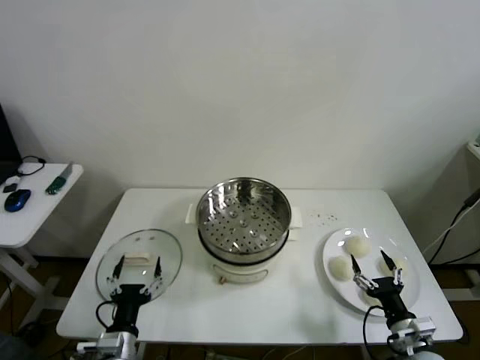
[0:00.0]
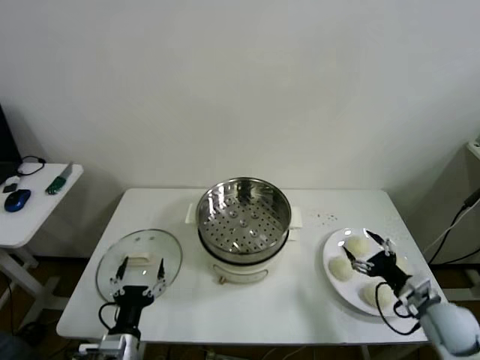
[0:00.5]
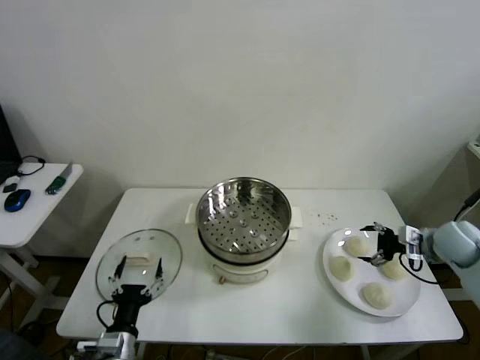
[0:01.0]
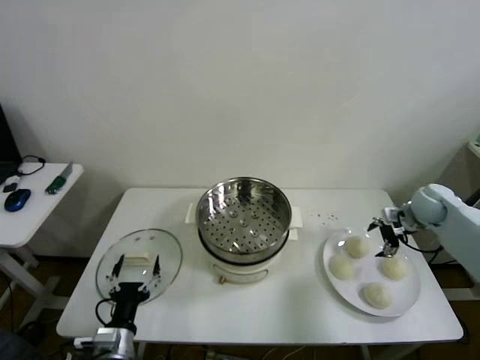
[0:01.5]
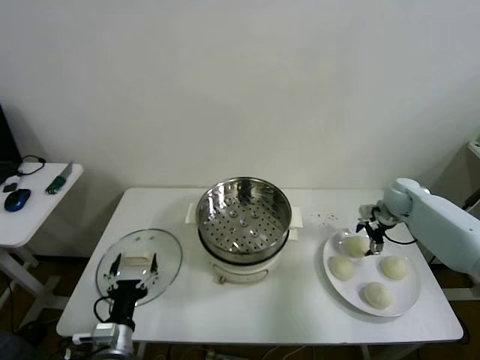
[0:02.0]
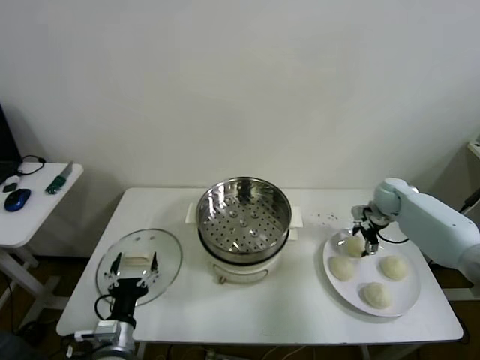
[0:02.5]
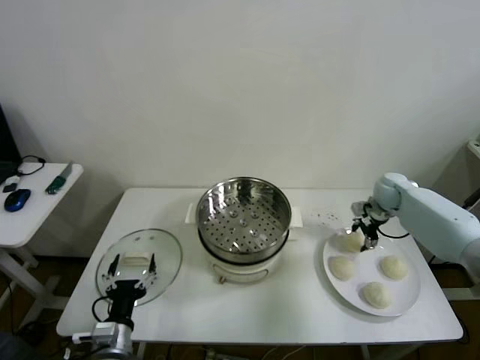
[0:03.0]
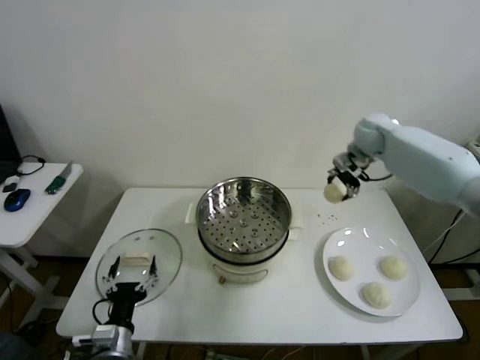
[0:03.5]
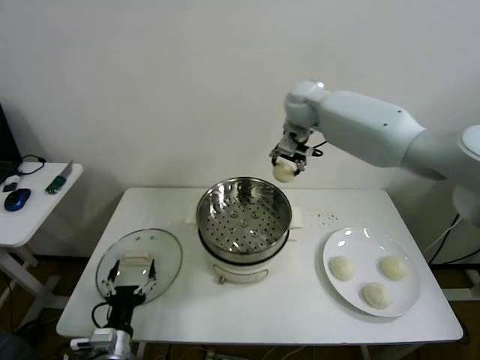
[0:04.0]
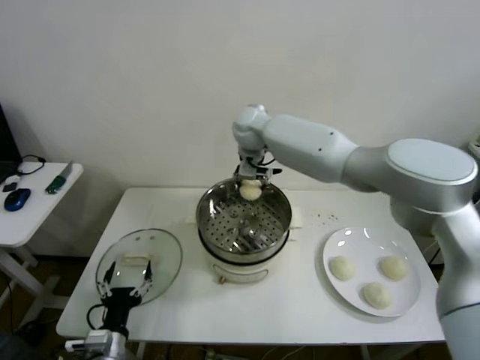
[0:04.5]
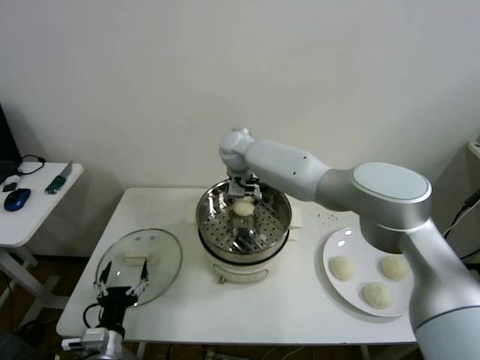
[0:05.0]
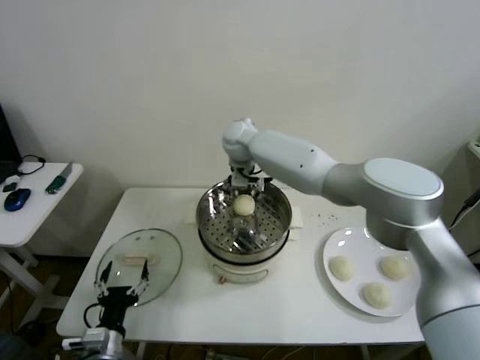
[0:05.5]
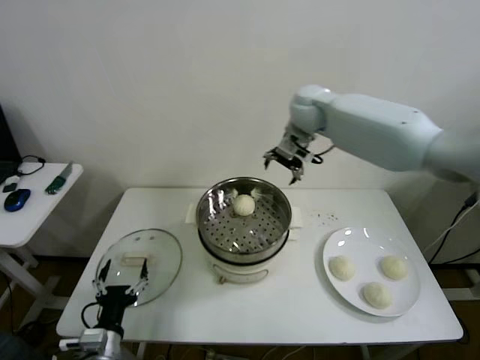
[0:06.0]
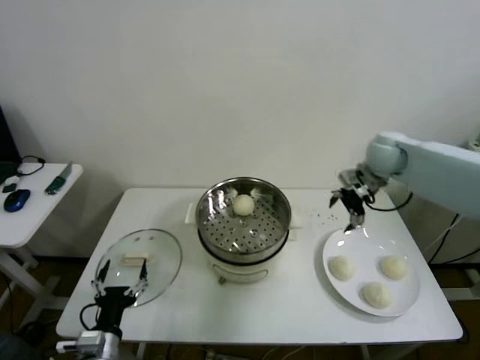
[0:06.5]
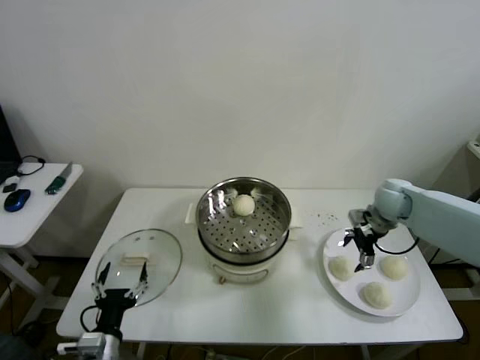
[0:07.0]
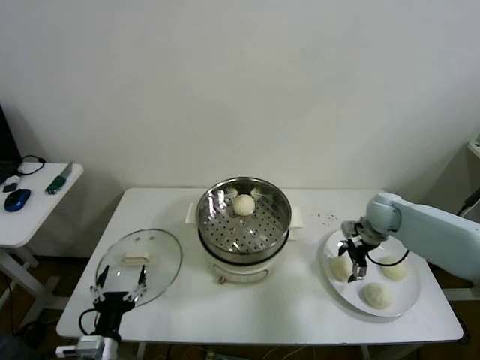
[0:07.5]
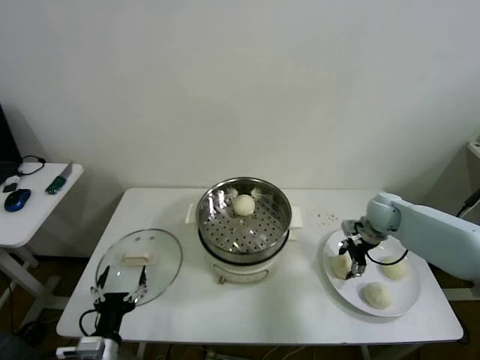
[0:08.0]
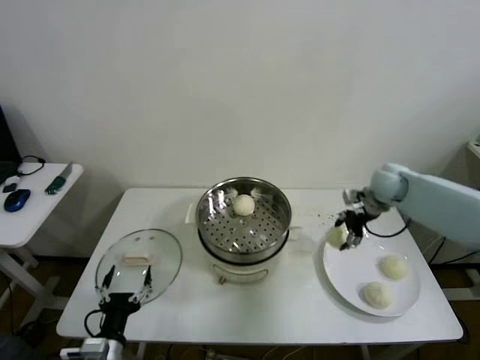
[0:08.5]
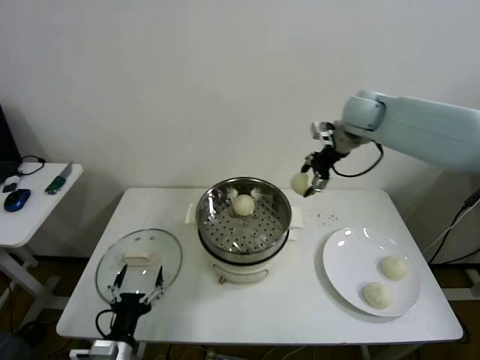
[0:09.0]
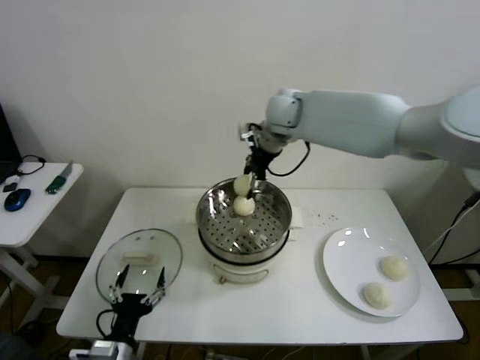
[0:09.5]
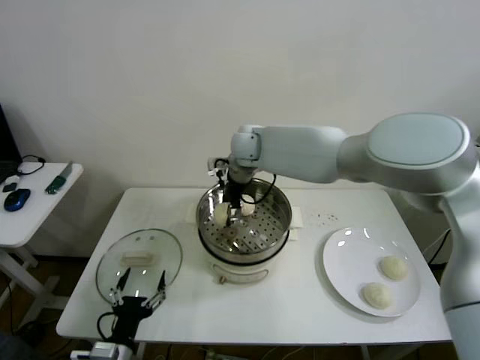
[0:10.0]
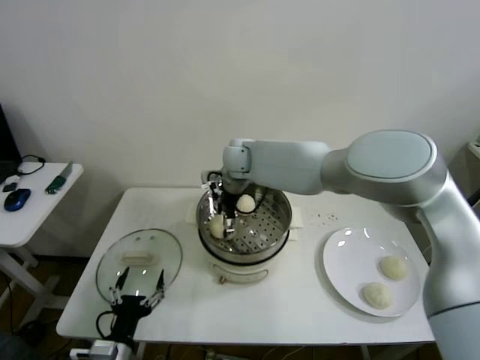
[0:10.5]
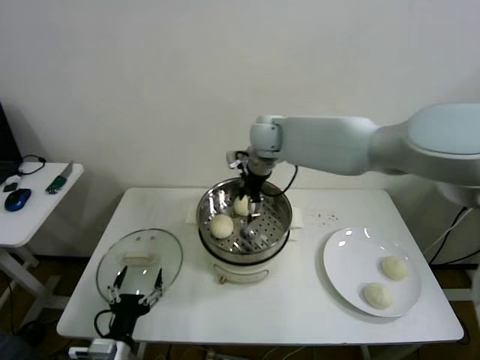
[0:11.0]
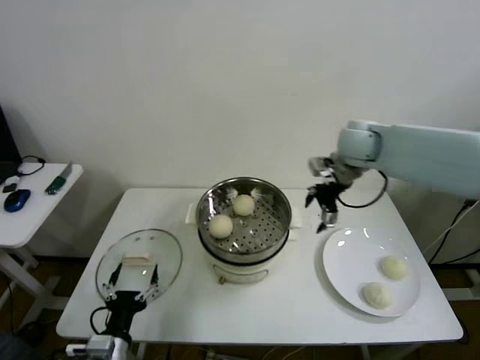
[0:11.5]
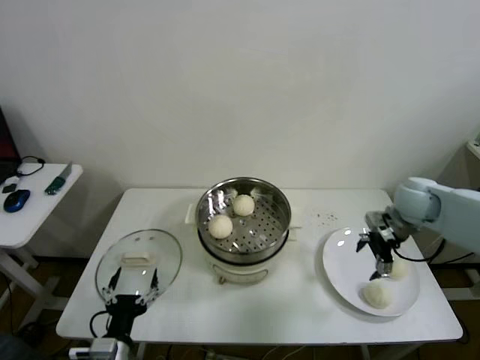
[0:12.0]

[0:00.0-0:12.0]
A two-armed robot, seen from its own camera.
Step, 0:00.0 to 0:02.5: Grasp the baozi in the plate with right gripper.
Step, 0:03.0 to 0:05.0: Place the baozi on the steamer with right gripper.
Step, 0:05.5 to 0:07.5: Grasp the baozi in the plate with right gripper.
Step, 0:08.0 to 0:10.0: Place the baozi on the steamer with right gripper.
0:02.0 to 0:04.0: The right gripper goes about 40 cm to the left and upward, and closes up.
0:04.0 to 0:06.0: The right gripper goes about 10 cm to the right, and opens.
0:06.0 to 0:08.0: The right gripper shifts approximately 30 cm downward and to the right, and closes.
0:08.0 to 0:10.0: The right gripper goes some 40 cm to the left and upward.
0:10.0 to 0:12.0: The right gripper goes roughly 40 cm to the right, and opens.

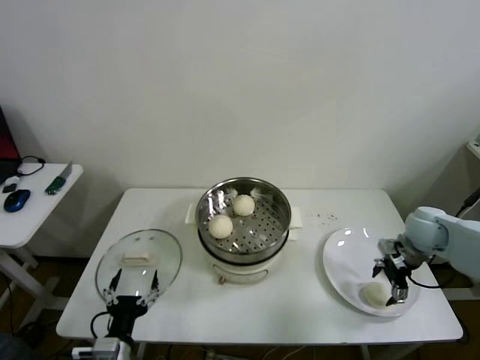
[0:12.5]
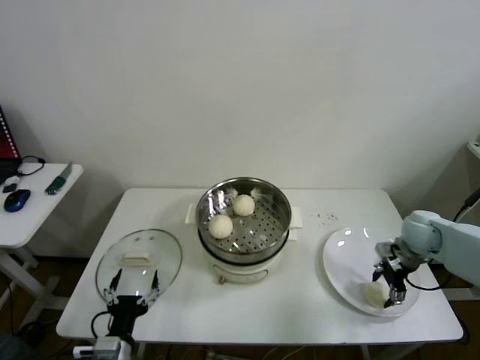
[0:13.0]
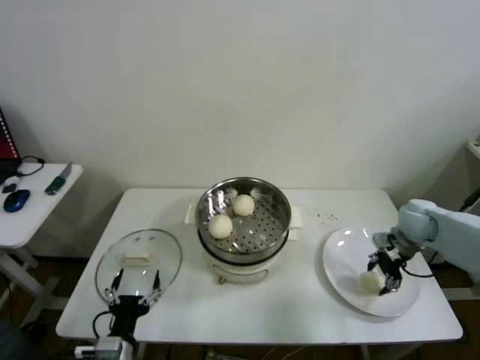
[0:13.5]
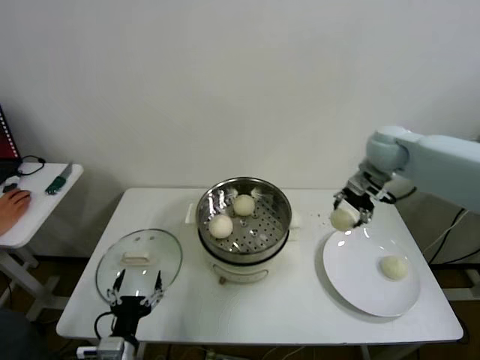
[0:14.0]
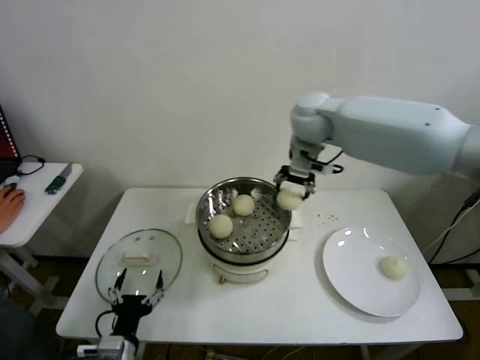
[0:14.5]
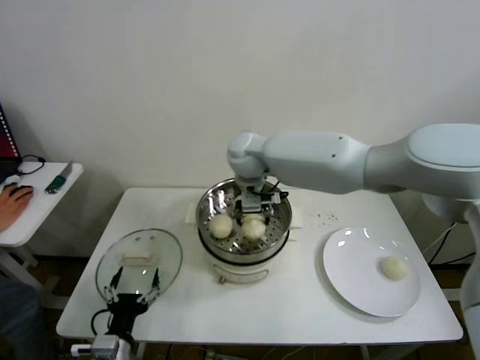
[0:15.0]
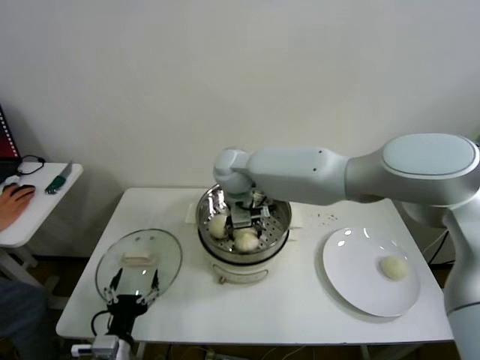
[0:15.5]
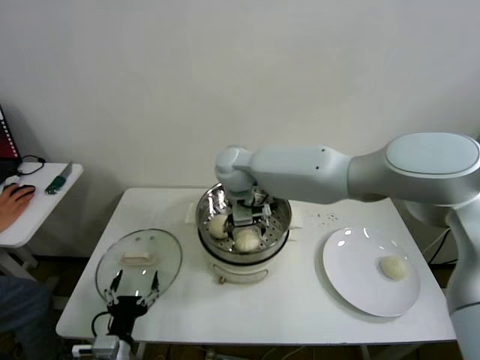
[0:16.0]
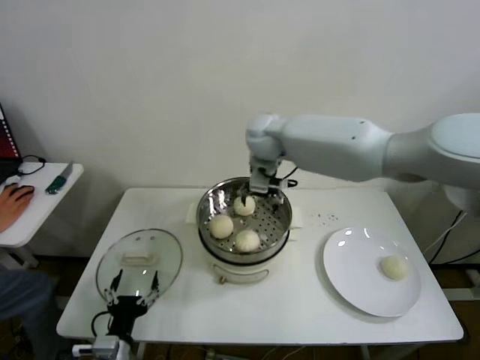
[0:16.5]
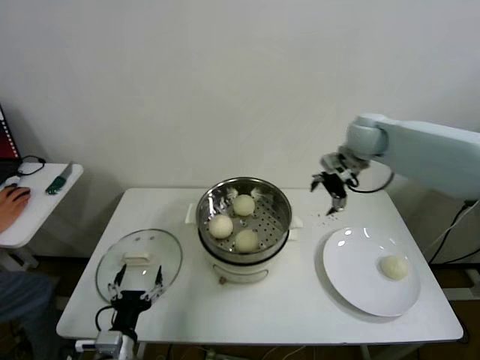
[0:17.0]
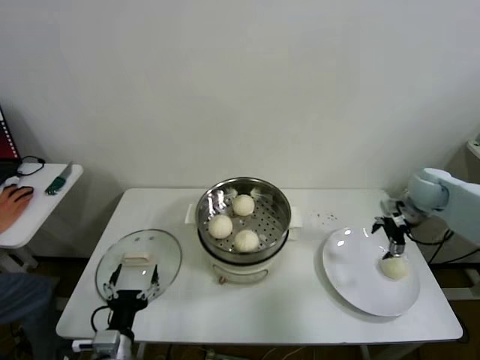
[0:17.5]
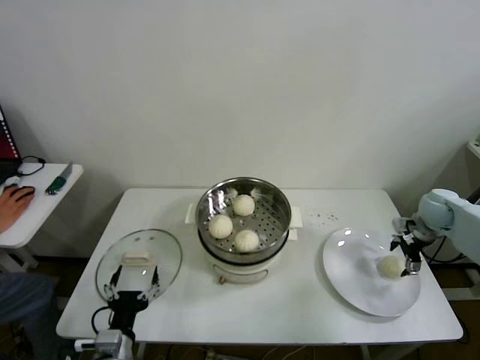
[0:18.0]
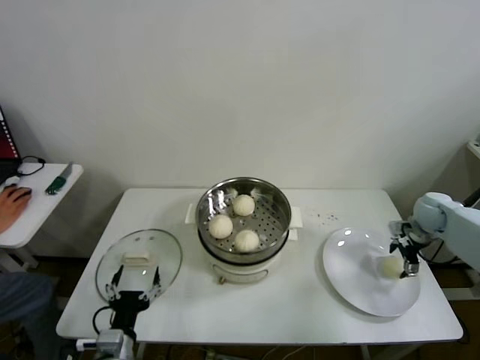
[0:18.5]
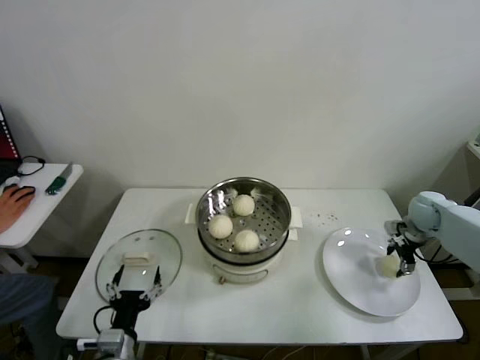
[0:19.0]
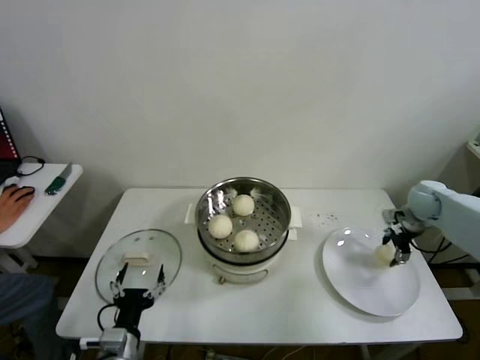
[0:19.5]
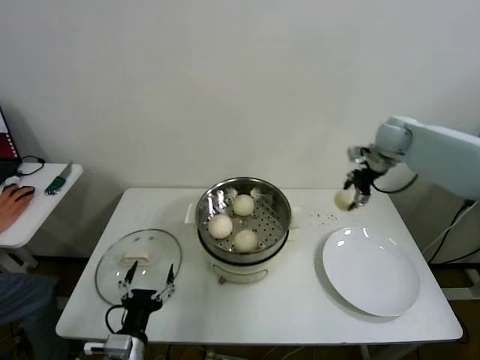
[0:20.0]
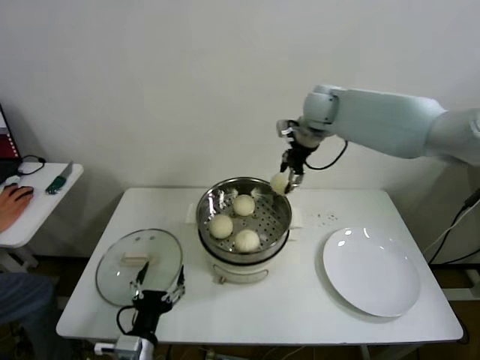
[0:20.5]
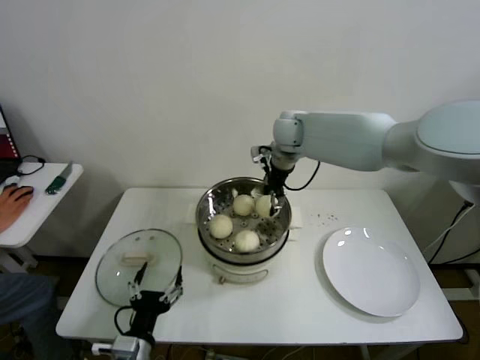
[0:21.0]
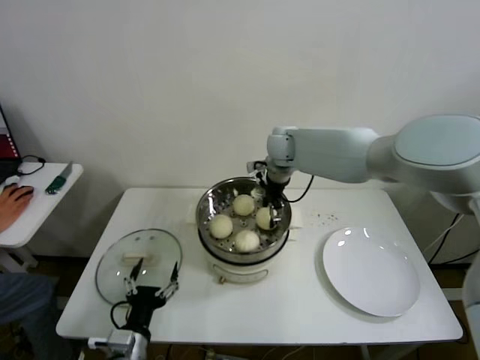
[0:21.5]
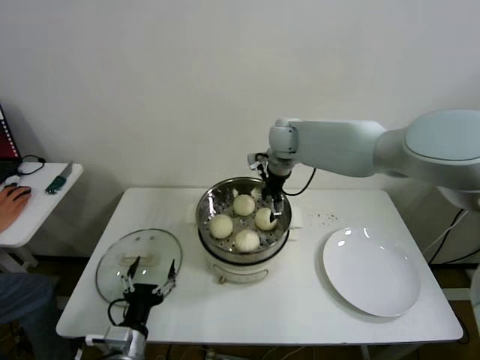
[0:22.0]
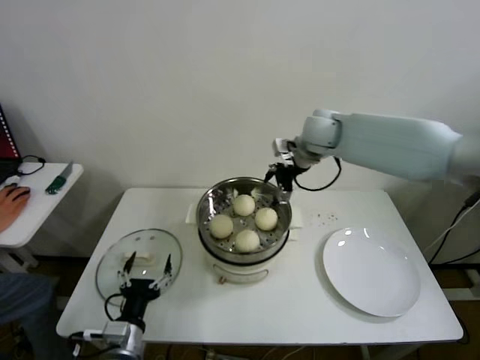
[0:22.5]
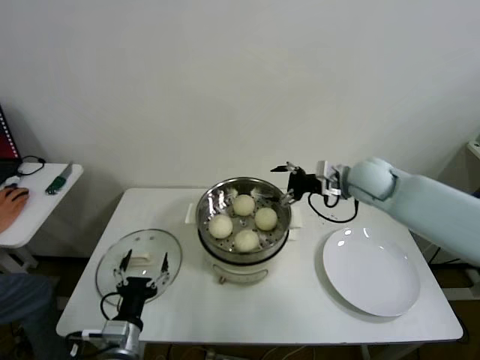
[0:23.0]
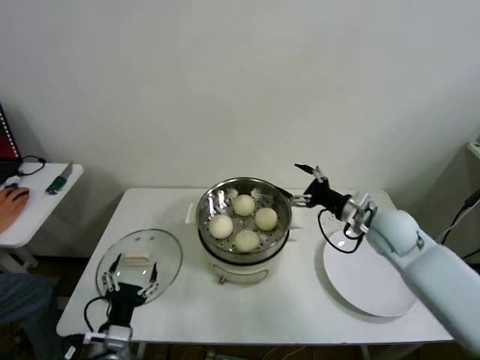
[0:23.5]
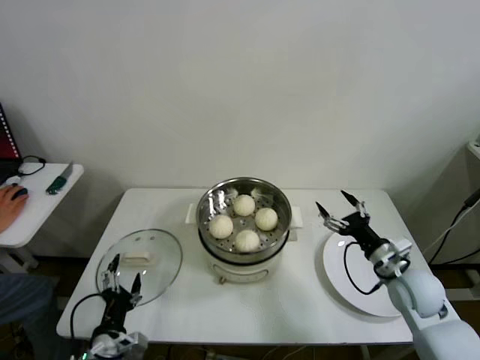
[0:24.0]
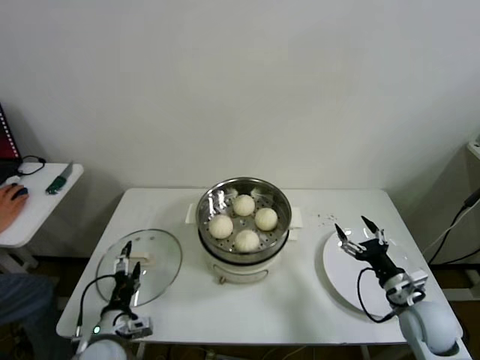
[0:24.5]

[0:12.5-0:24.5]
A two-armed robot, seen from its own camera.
Step, 0:13.5 to 0:15.5: Place the baozi on the steamer with right gripper.
Step, 0:16.0 to 0:19.0: Grasp the baozi in the plate with right gripper.
Step, 0:19.5 to 0:21.5: Place the baozi on the steamer with right gripper.
0:12.5 to 0:14.5: The right gripper moves to the left and upward, roughly 40 cm, and closes up.
0:14.5 to 0:16.5: The right gripper moves approximately 15 cm to the left and comes back, and opens.
0:16.5 to 0:18.5: The right gripper travels to the right and downward by about 50 cm.
0:18.5 to 0:20.5: The right gripper moves to the left and upward, about 40 cm, and closes.
0:20.5 to 0:22.5: The right gripper opens up.
0:22.5 to 0:24.5: The left gripper ends up some 5 cm from where it was. Meanwhile the right gripper shifts some 50 cm backward, downward and to the right.

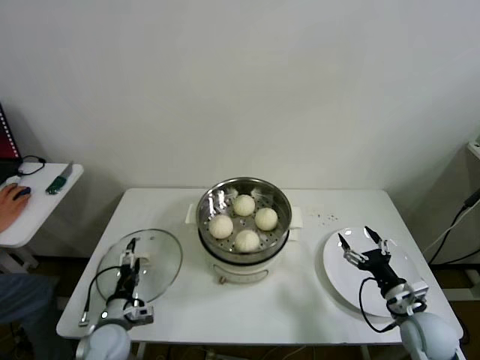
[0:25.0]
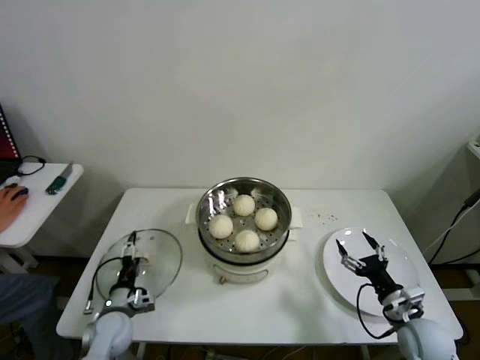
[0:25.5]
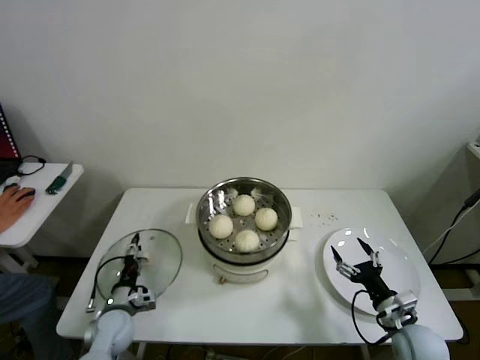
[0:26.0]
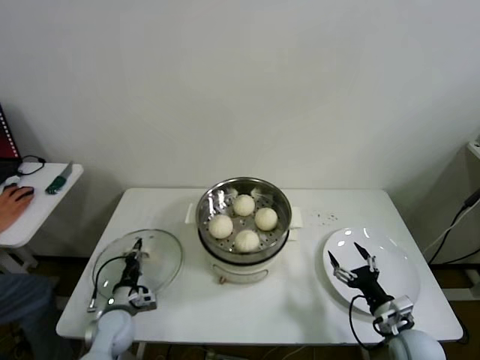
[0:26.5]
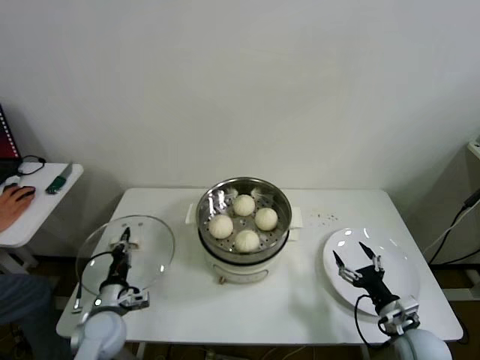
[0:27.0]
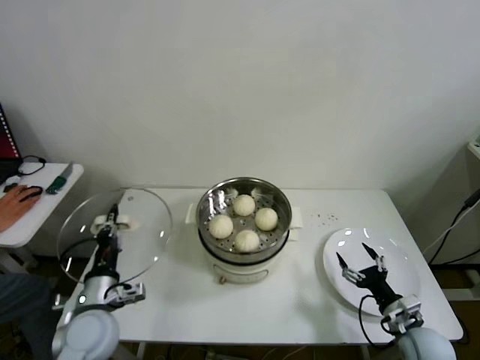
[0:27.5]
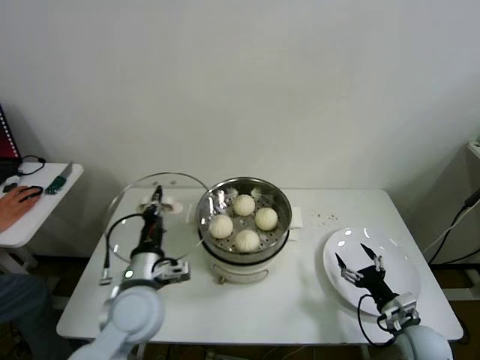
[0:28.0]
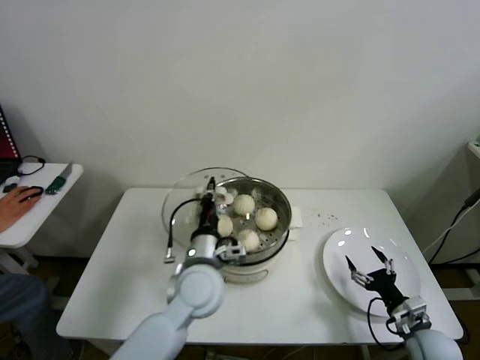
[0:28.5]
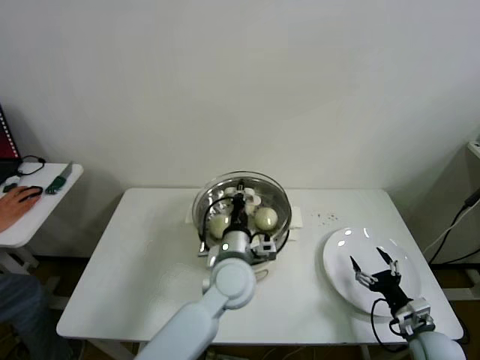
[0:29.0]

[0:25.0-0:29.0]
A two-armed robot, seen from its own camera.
0:25.0 to 0:27.0: The left gripper closes its fingers.
0:27.0 to 0:29.0: The left gripper travels to the right and upward by roughly 30 cm.
